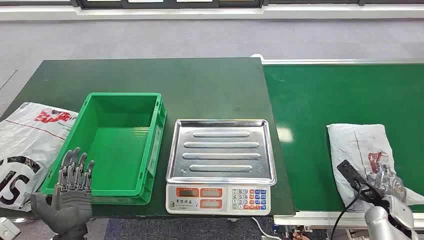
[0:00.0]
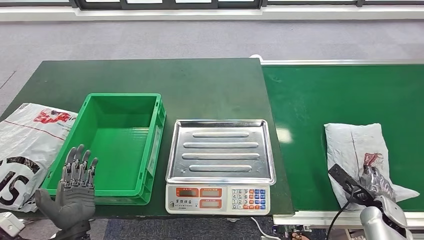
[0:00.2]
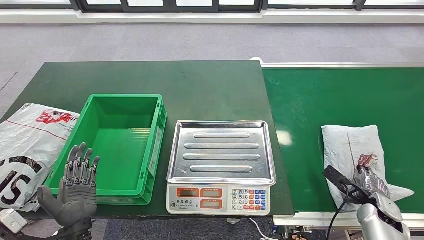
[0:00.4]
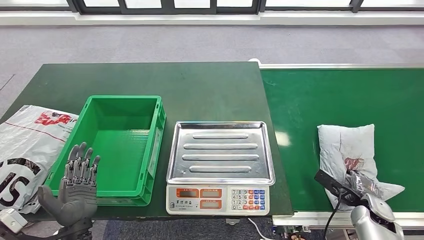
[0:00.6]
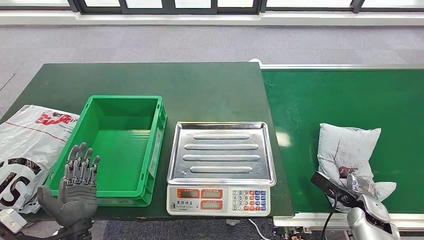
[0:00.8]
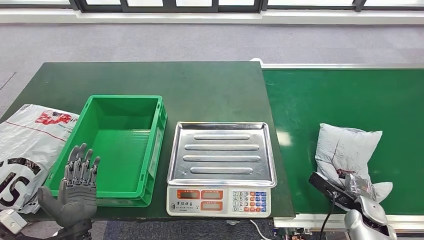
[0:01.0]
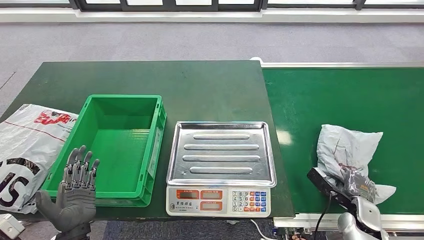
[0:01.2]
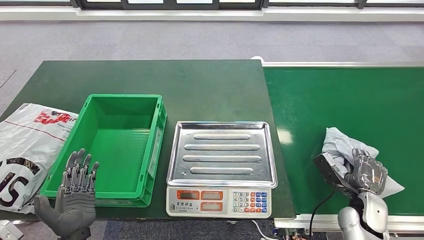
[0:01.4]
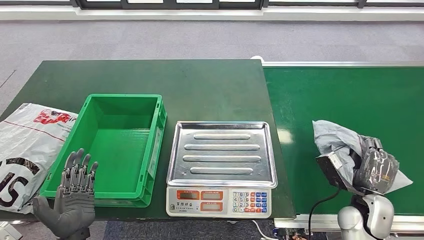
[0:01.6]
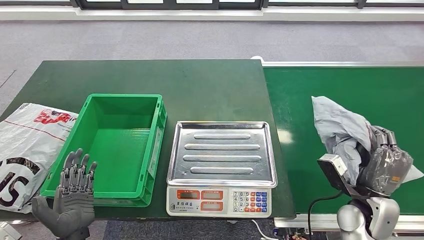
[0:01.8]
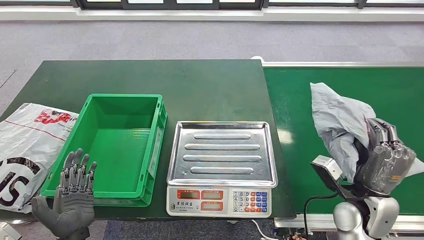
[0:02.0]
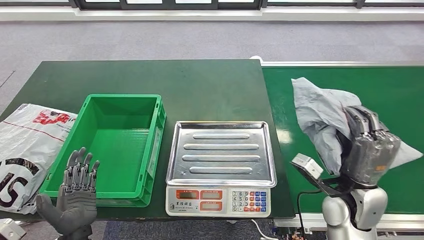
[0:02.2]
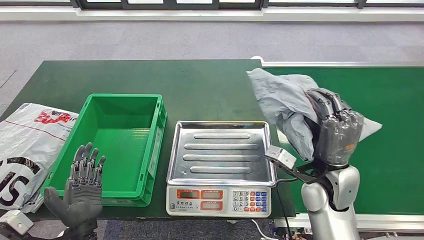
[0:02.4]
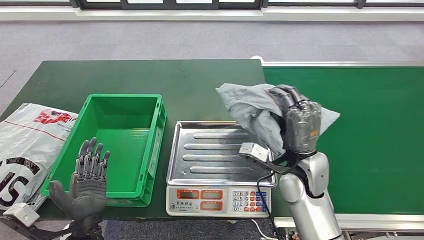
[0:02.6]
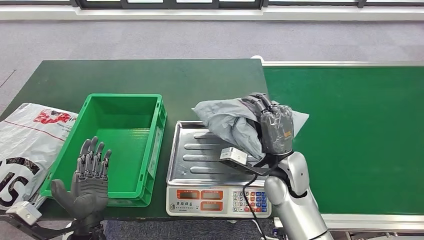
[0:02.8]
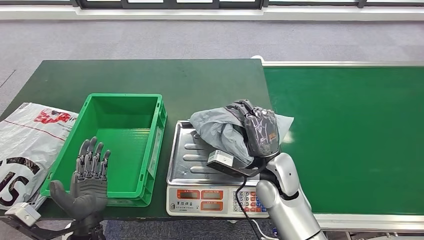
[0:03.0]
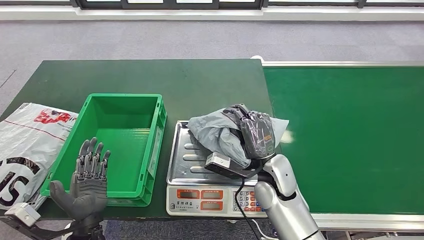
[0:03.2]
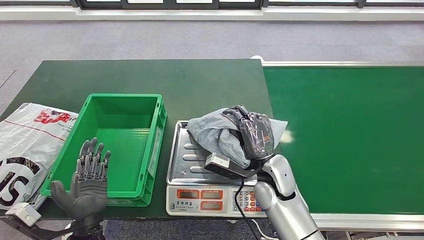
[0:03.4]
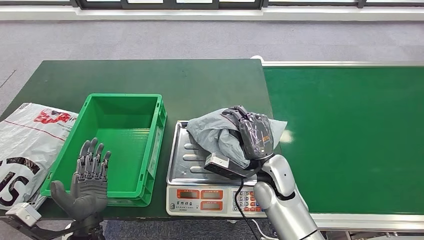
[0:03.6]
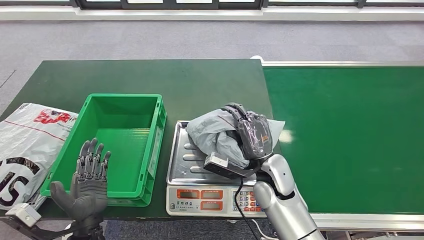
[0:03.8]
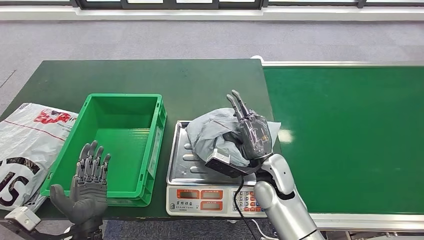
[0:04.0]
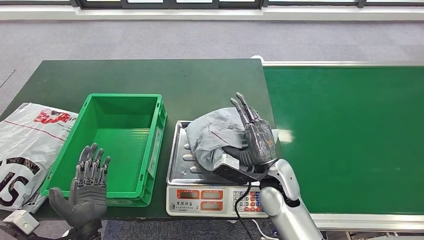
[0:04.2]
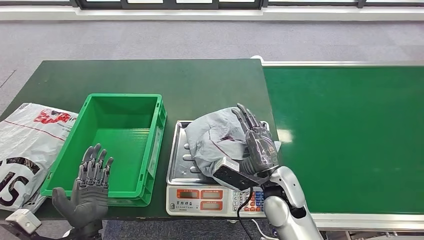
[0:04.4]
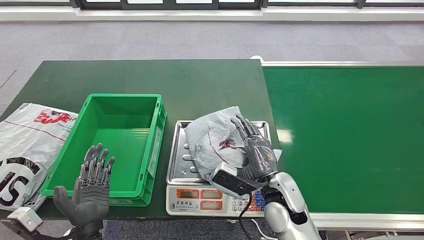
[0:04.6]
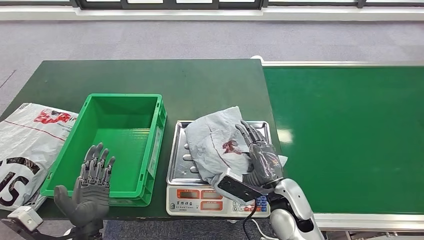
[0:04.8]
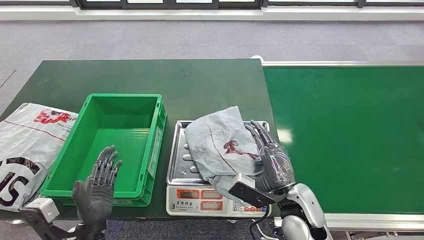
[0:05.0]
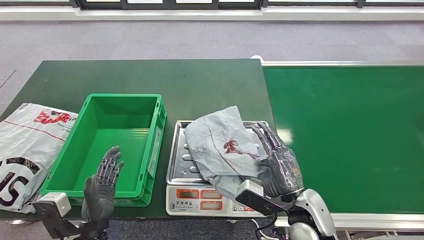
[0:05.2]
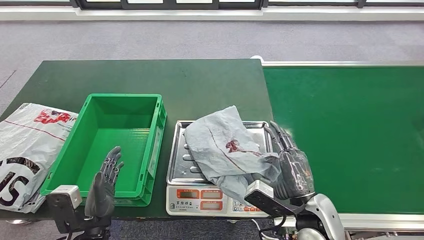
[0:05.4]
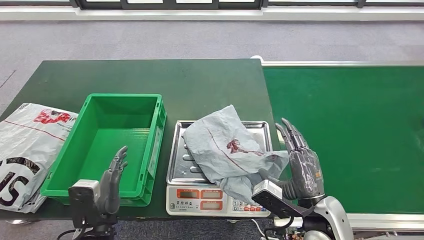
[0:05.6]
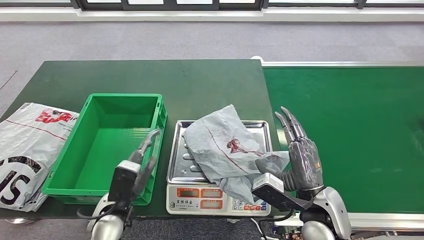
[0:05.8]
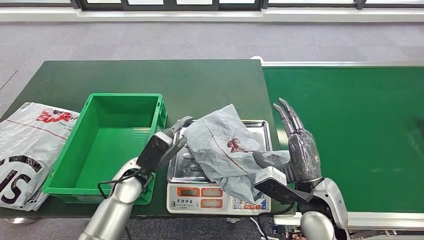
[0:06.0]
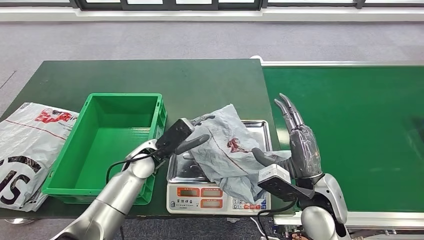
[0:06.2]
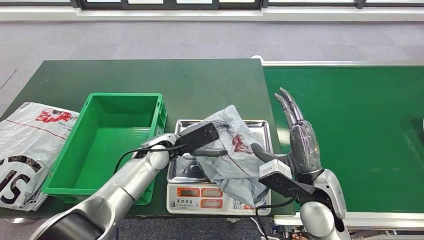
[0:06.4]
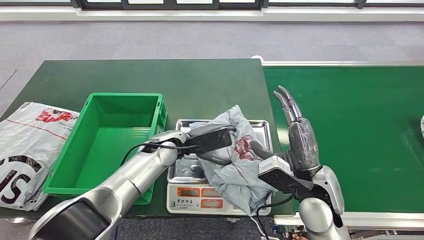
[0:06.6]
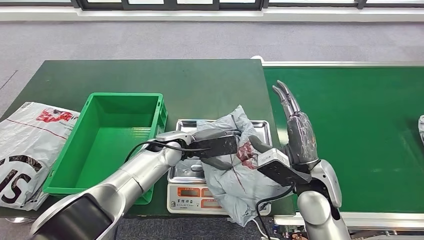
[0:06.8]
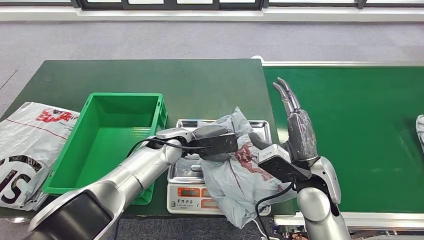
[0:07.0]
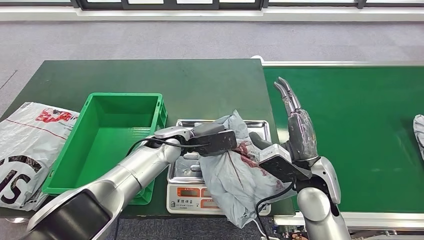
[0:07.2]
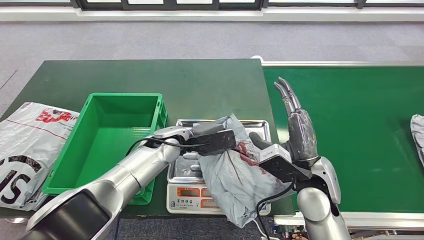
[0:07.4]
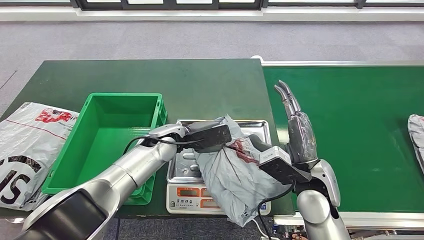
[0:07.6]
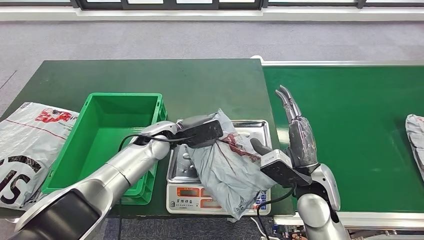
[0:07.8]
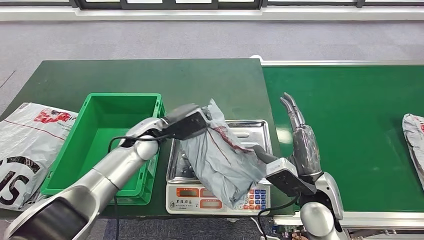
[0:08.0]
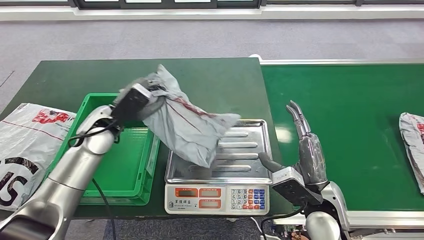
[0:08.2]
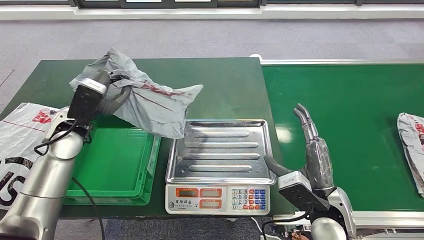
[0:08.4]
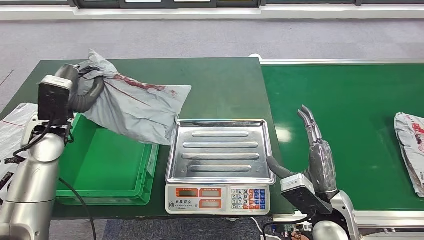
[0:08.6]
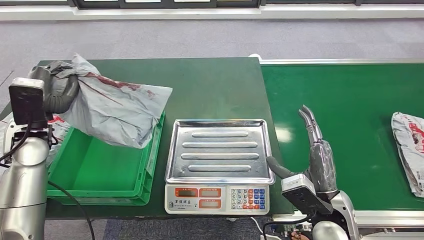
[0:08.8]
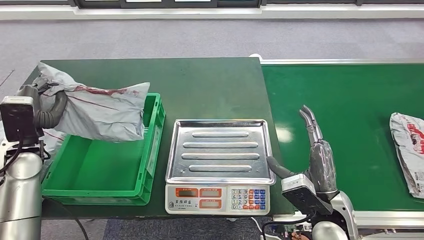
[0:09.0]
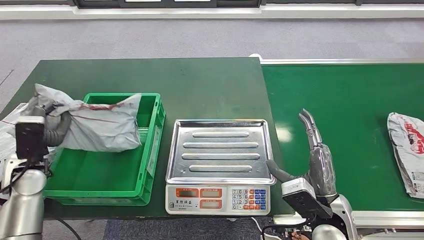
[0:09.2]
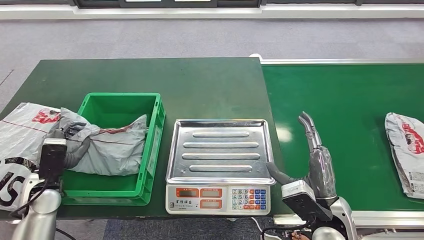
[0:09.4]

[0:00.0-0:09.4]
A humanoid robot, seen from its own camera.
Step, 0:00.0 to 0:02.0: Pick up the package from the conveyor belt.
Step, 0:02.4 to 0:06.0: Place the package onto the inbound machine.
Step, 0:06.2 to 0:08.6: Pick up the package from the inbound machine.
Step, 0:08.8 to 0:09.4: Place the package into the parcel locker.
0:03.2 to 0:04.8: The right hand shifts roughly 5 cm backward.
0:06.2 to 0:07.8: The left hand shifts by about 5 cm.
